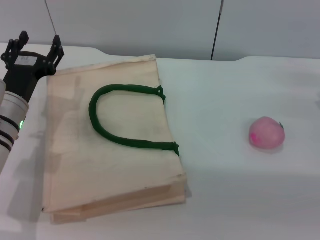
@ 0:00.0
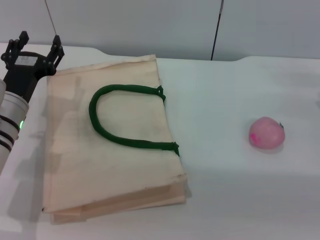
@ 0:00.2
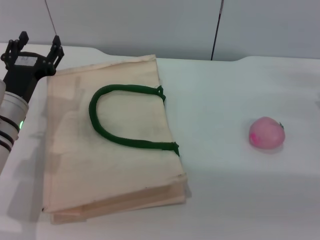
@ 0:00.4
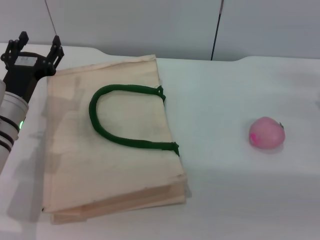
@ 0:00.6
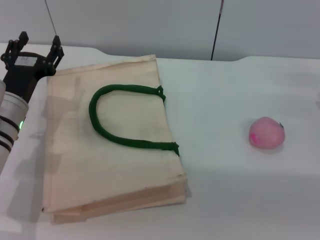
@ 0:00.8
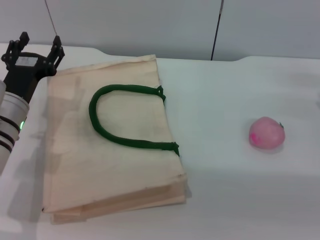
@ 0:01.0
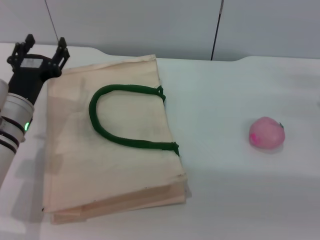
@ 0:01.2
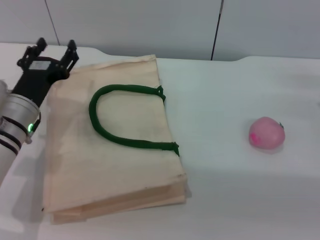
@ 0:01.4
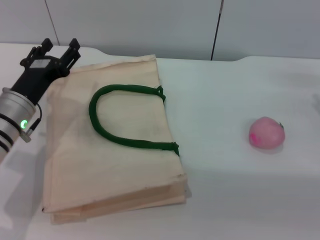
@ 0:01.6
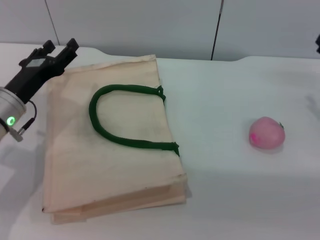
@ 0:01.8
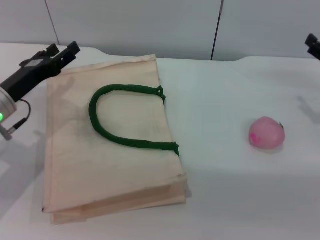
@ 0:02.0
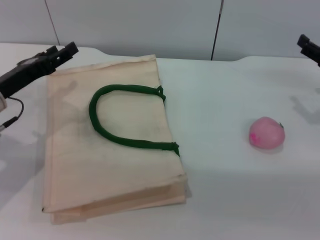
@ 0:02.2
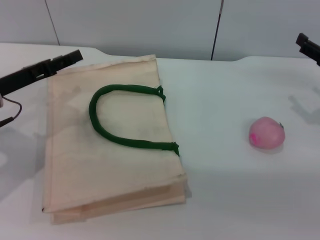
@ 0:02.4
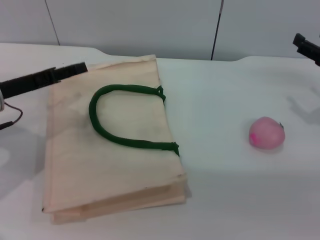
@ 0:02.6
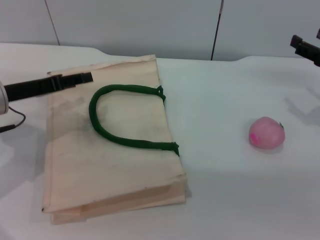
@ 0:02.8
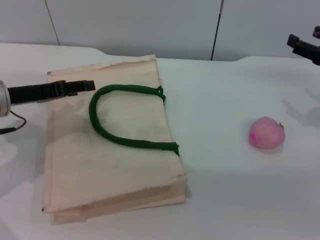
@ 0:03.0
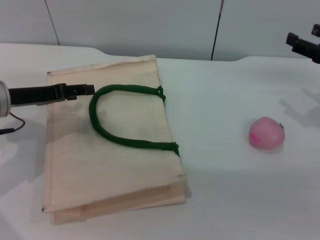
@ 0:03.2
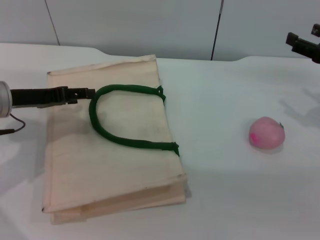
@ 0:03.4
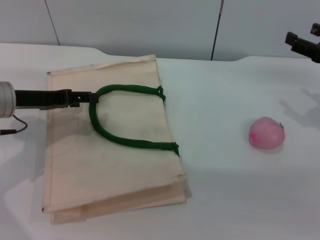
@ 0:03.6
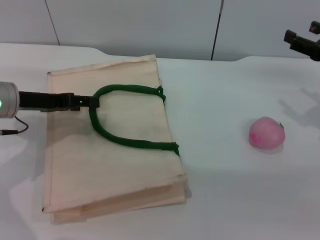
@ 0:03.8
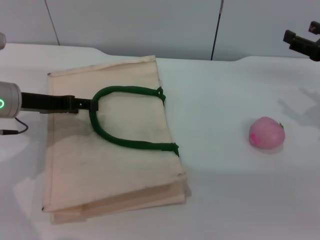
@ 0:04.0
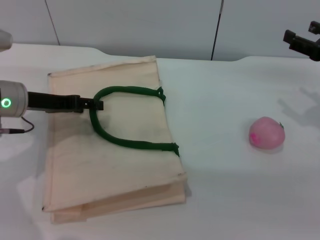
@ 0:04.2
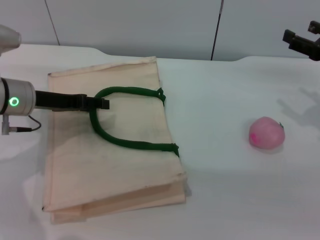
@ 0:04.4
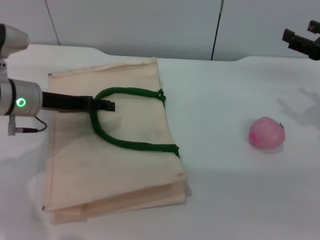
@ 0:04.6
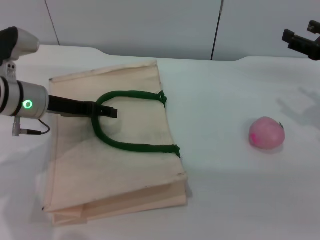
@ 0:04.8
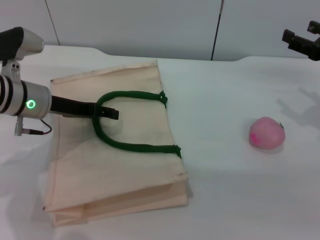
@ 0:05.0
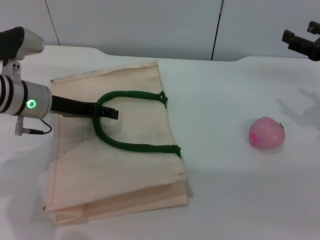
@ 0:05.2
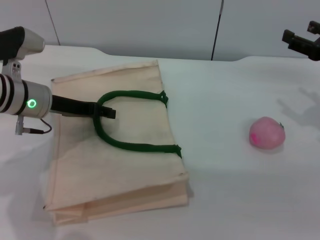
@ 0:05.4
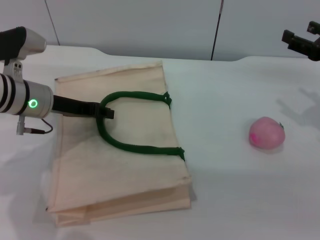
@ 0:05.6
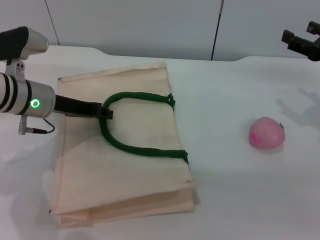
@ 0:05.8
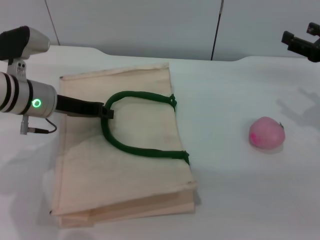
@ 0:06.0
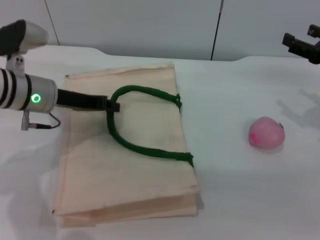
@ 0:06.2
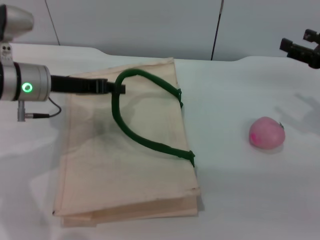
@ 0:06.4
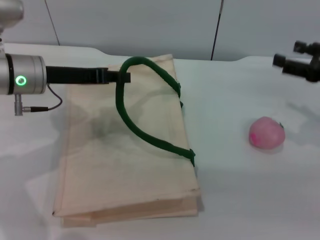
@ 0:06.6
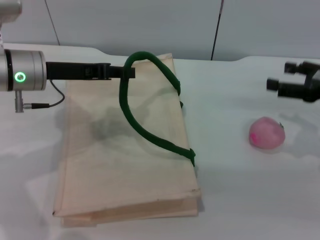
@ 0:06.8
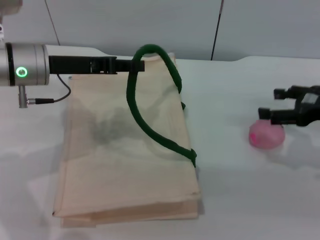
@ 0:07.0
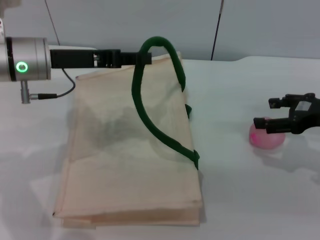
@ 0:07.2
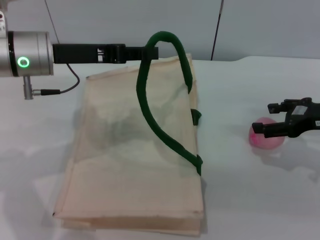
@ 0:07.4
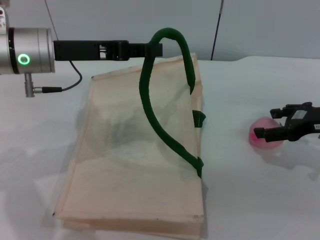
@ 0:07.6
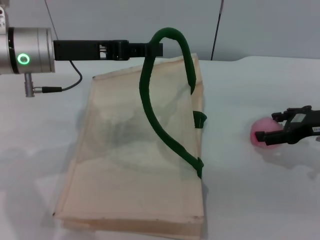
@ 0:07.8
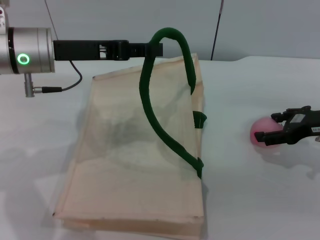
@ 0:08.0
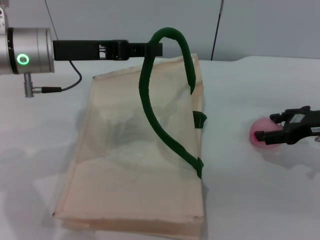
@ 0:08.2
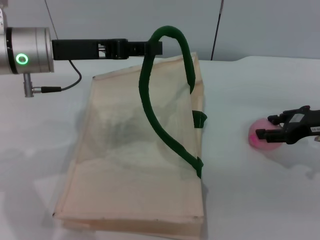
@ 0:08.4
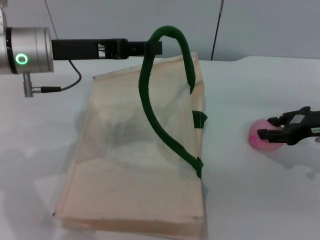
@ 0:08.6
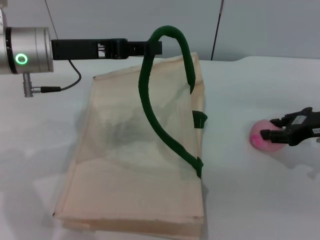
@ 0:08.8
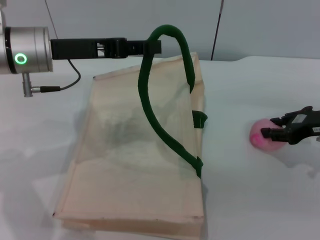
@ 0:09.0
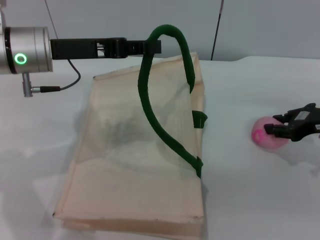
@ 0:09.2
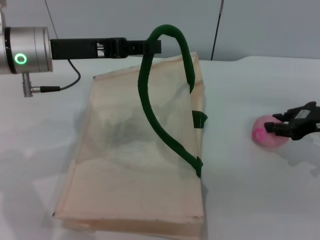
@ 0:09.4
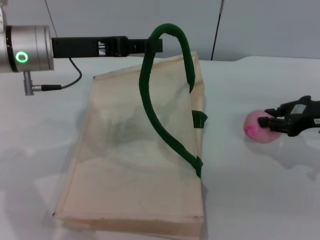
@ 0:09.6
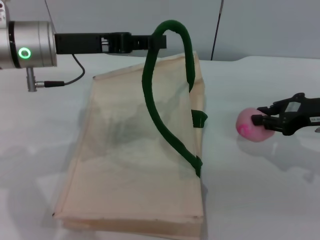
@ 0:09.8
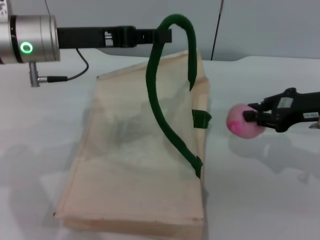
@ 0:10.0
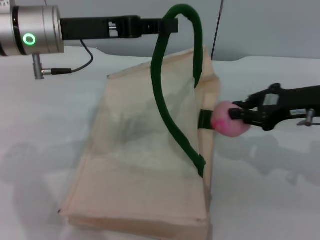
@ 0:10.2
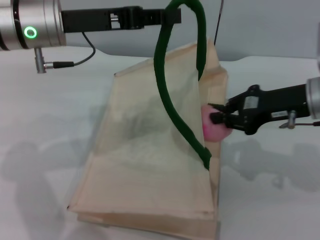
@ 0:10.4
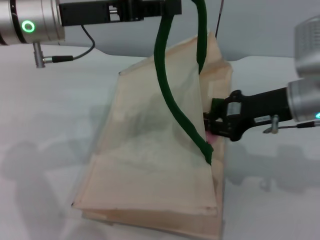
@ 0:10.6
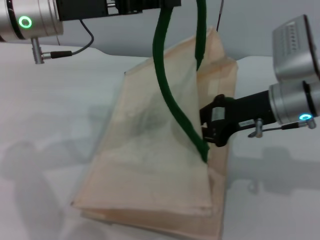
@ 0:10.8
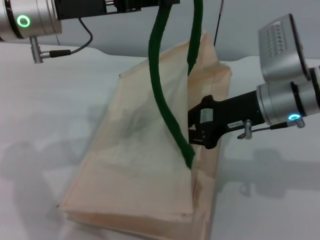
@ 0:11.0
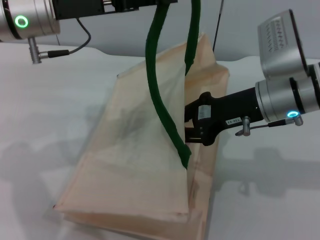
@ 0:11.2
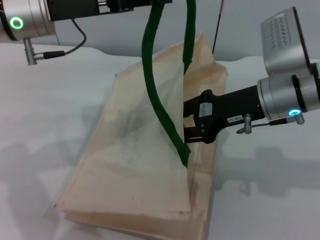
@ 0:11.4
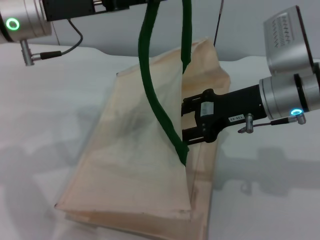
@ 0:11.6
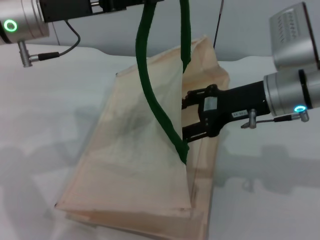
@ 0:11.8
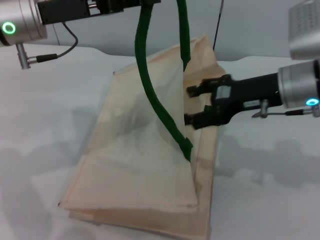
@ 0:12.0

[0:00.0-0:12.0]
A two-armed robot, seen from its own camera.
Task of the whole recording: pick up the peach from the table and place it in the white handbag.
Step, 0:00.0 to 0:06.2: Lift the woven bag with the left gripper to open it.
Step, 0:06.4 to 0:09.8: Pick up the peach with the right gripper.
0:00.0 to 0:01.6: The grippers stay close to where they were, moving slightly.
0:01.6 to 0:03.0: Both grippers travel together upward, about 5 cm.
0:03.0 to 0:04.4: The grippers move only a little.
0:04.4 to 0:06.0: The left gripper closes up.
0:06.0 to 0:07.6: The left gripper is displaced upward by some 10 cm.
0:07.6 to 0:09.0: The right gripper closes.
0:09.0 to 0:10.4: The right gripper moves to the left, approximately 5 cm, and closes its fingers.
0:10.4 to 0:12.0: The right gripper opens up.

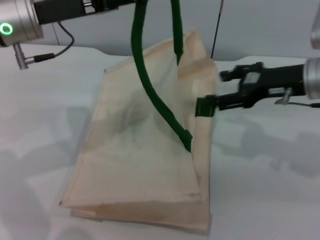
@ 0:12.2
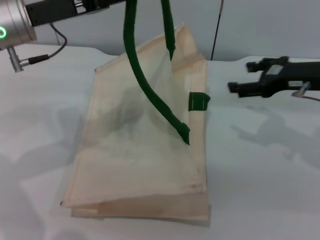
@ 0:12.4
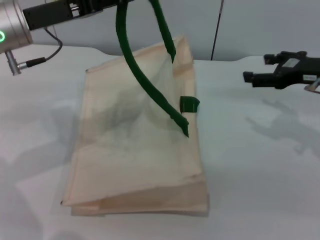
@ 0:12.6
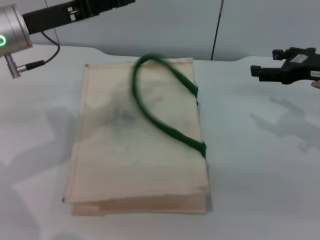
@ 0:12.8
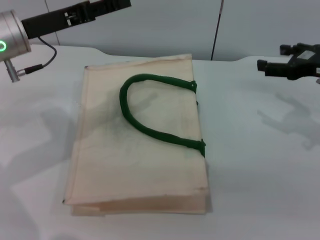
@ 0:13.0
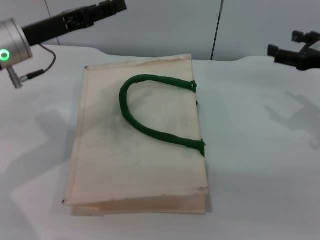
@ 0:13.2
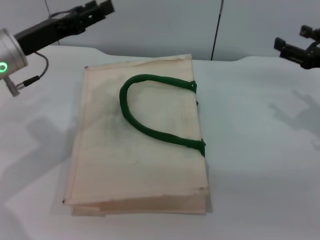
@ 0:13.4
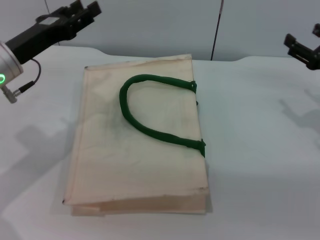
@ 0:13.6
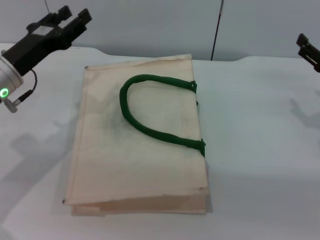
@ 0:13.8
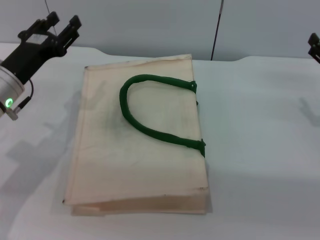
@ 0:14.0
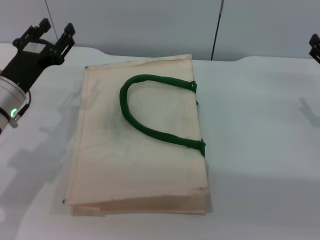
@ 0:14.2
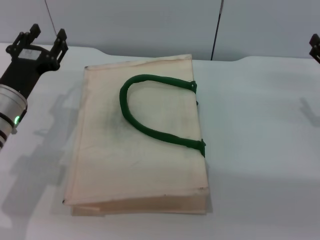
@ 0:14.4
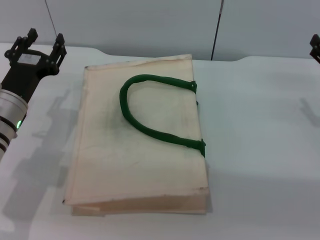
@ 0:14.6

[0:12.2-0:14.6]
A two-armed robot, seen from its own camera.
Task of the whole recording: pick up the peach from the table and place it in the white handbag.
Step, 0:12.2 to 0:13.6: Lower the woven bag with the left gripper to close it.
0:12.2 to 0:13.4: The left gripper heads downward, covering some 5 cm, and opens its fingers, while the right gripper shifts roughly 10 cm to the right.
0:13.4 to 0:14.6: The left gripper goes roughly 10 cm downward. The right gripper ends up approximately 5 cm from where it was.
